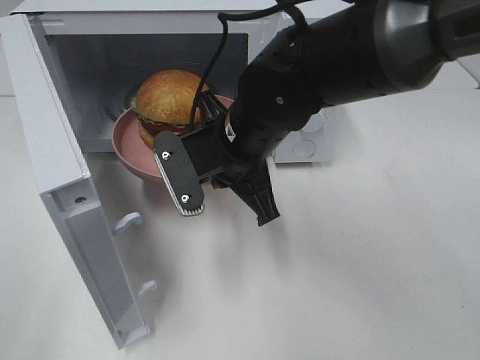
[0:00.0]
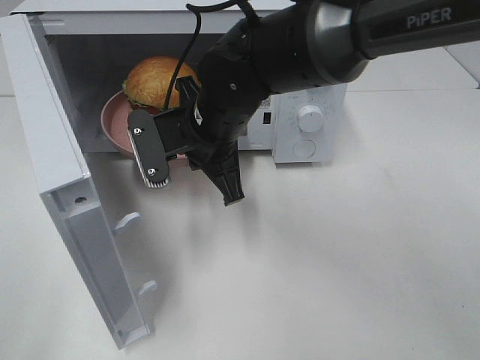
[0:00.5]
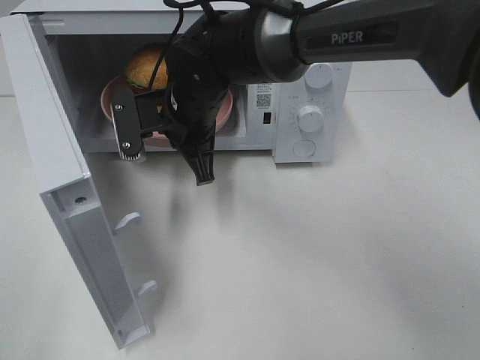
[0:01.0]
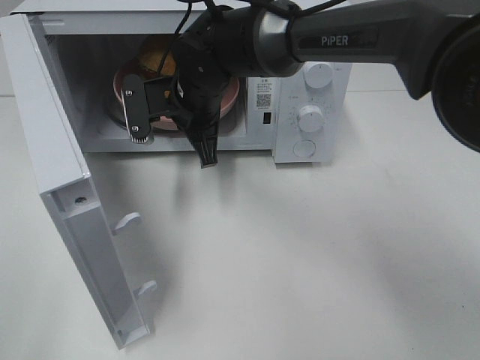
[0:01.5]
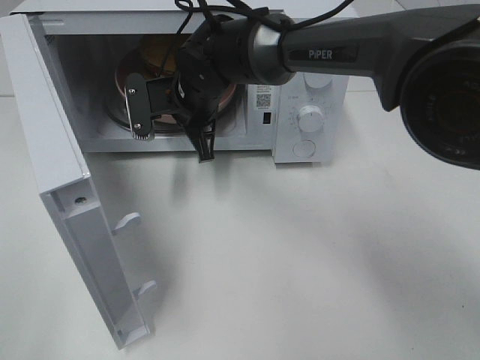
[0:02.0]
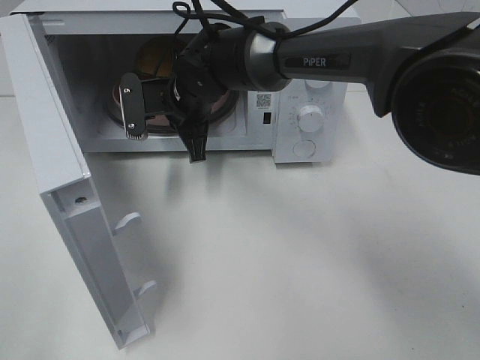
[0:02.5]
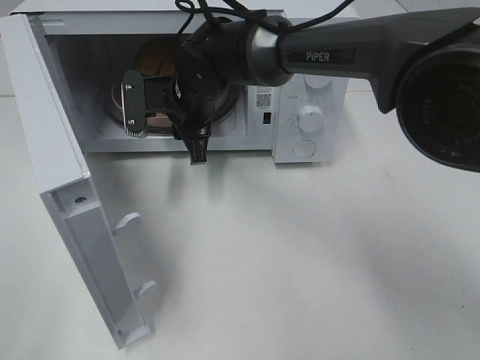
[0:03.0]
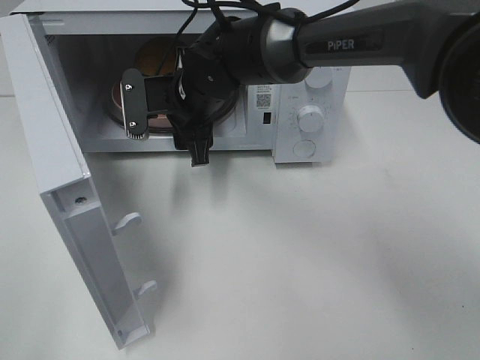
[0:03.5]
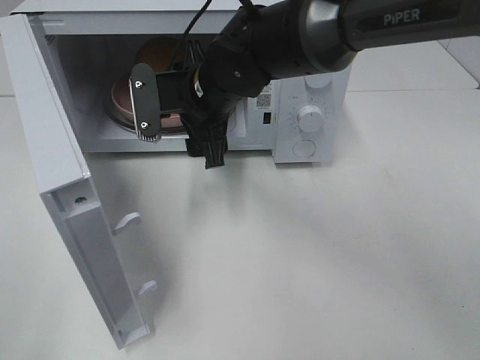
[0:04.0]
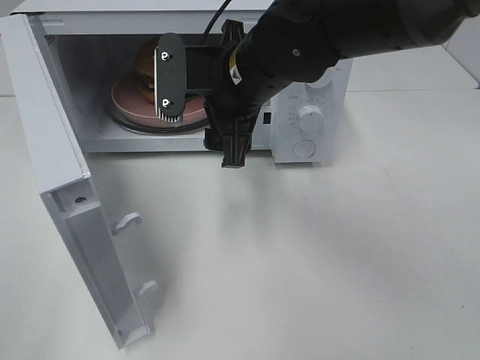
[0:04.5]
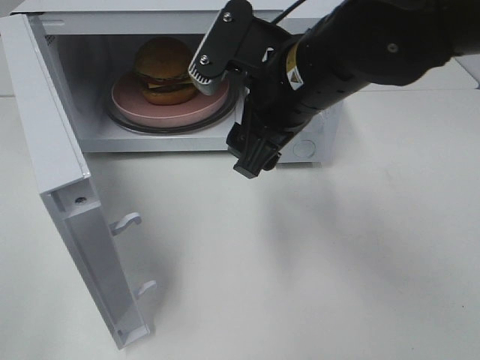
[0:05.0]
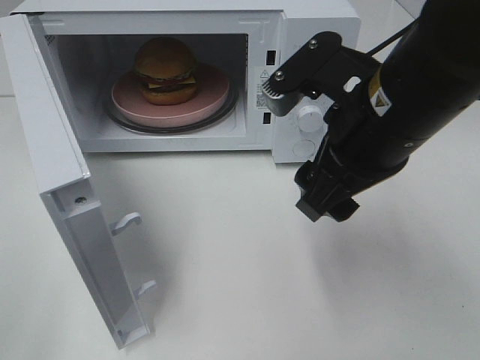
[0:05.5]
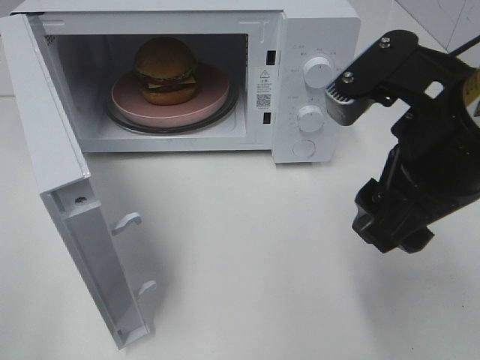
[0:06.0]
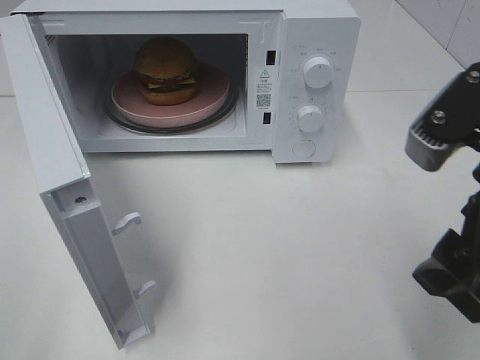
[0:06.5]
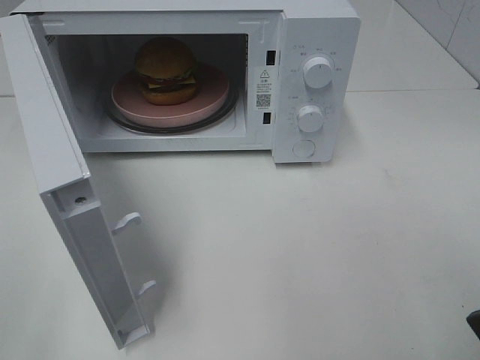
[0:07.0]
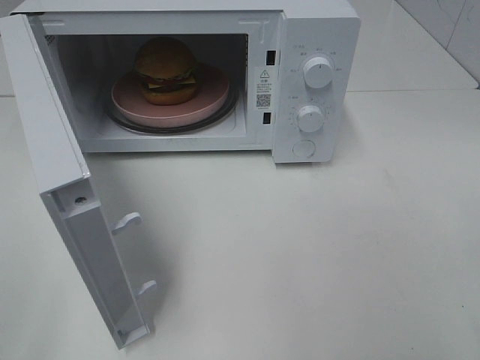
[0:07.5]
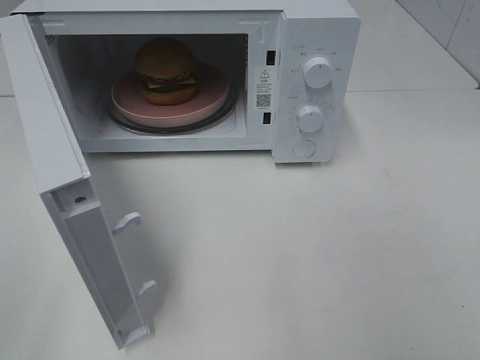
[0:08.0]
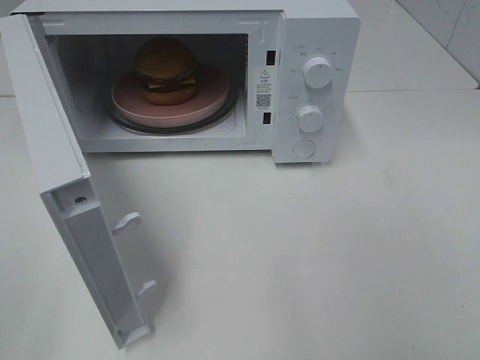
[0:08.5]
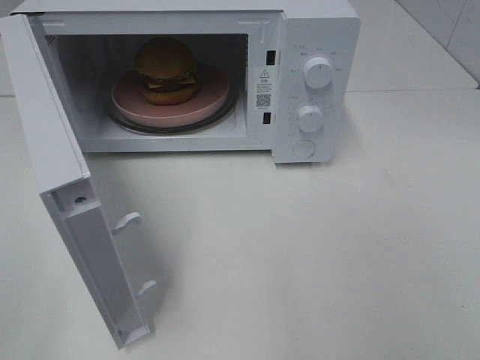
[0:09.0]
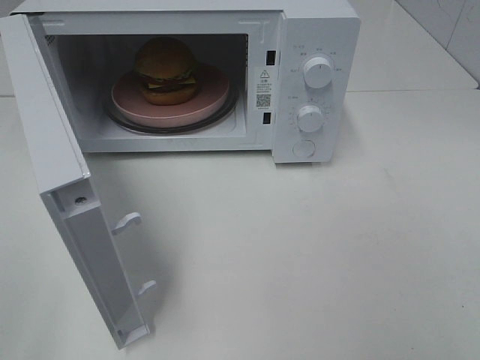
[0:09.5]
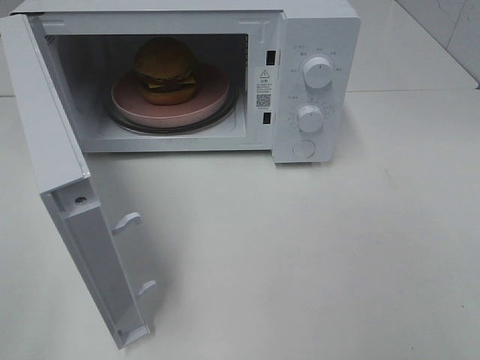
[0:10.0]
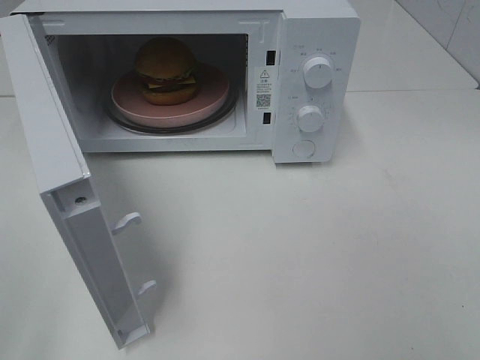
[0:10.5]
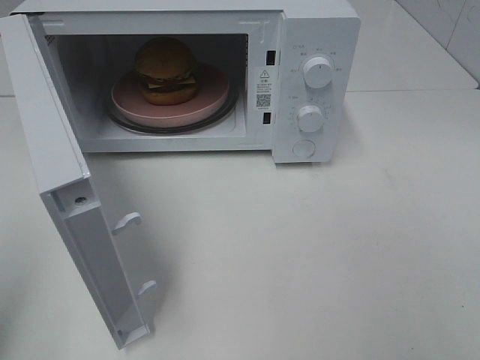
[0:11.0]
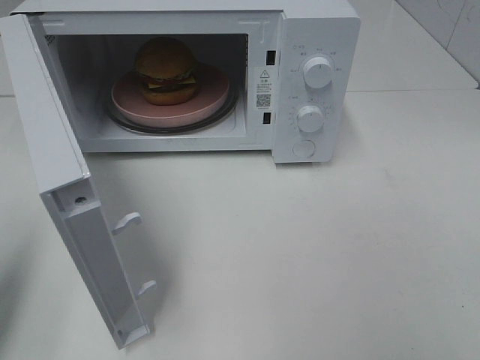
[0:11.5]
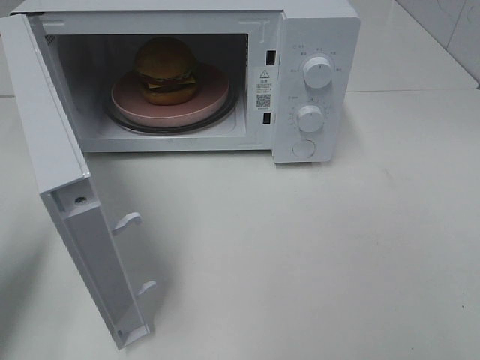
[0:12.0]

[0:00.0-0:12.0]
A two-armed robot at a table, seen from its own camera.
Task of the whole recording: Heat the burger.
Step, 0:00.0 to 0:02.5: Right hand: place the plate in the microwave.
0:00.0 to 0:02.0: The right gripper heads forward and to the left, covering some 15 cm.
0:02.0 to 0:04.0: The right gripper shifts by some 5 cm, and opens its fingers.
0:04.0 to 0:06.0: The right gripper heads backward, to the right and upward, covering approximately 25 cm.
0:06.0 to 0:08.0: The right gripper goes roughly 25 cm backward and to the right.
0:10.0 to 0:12.0: The left gripper moves forward and downward, some 20 cm, and closes.

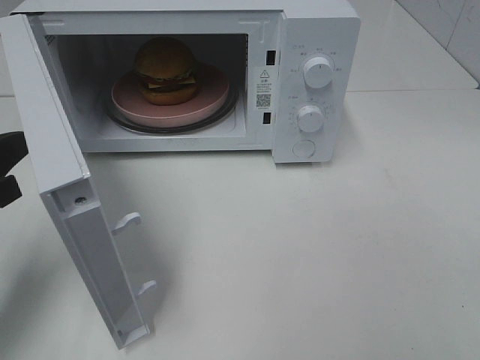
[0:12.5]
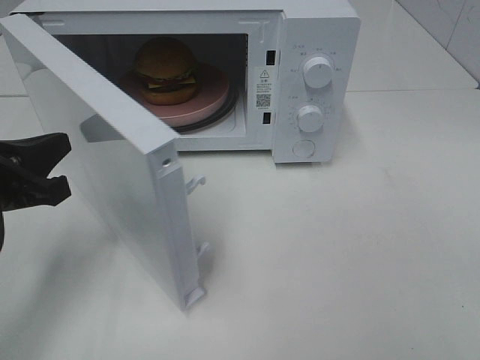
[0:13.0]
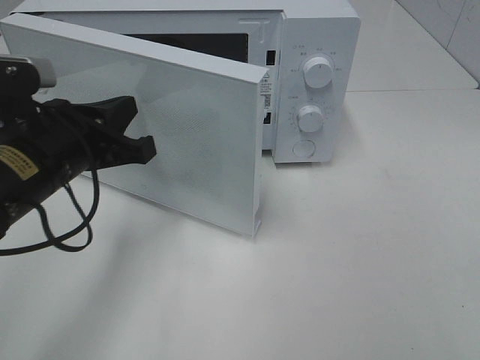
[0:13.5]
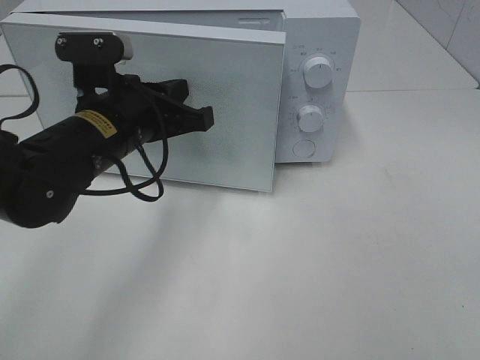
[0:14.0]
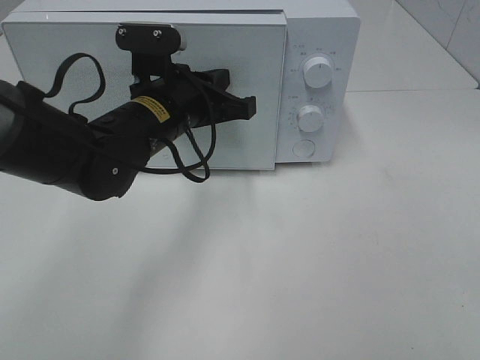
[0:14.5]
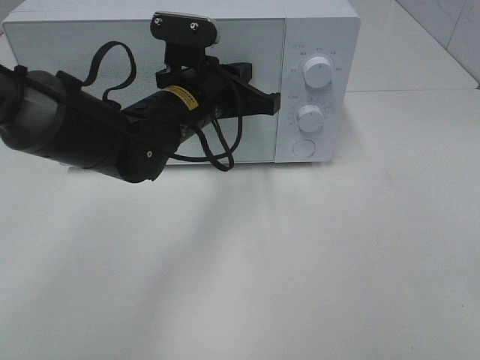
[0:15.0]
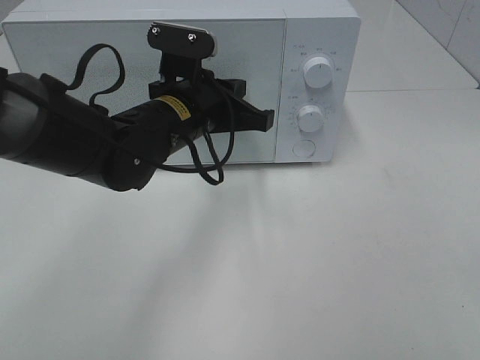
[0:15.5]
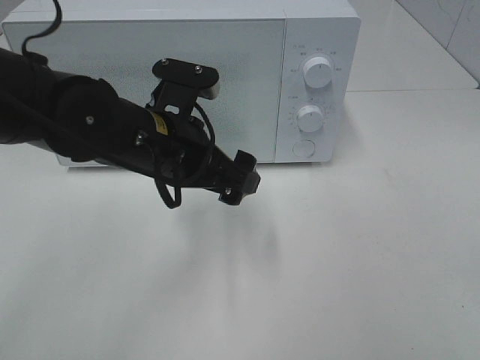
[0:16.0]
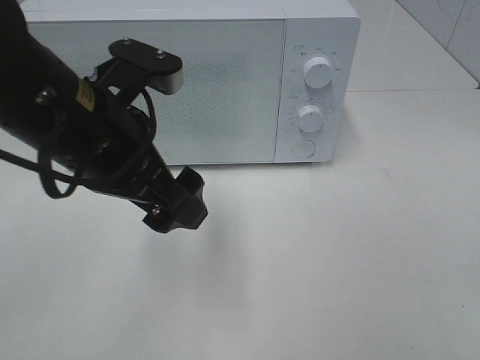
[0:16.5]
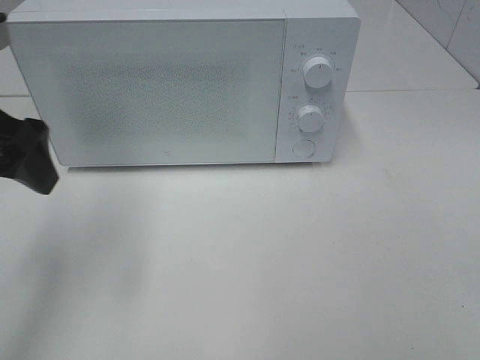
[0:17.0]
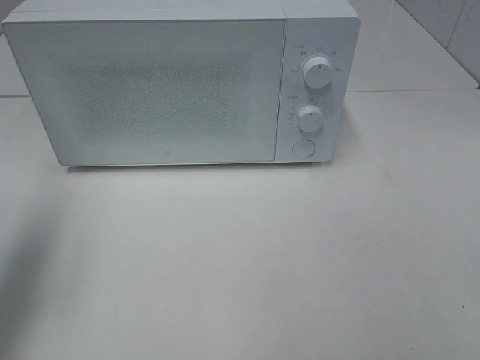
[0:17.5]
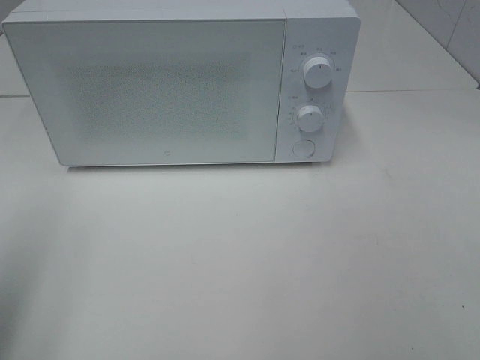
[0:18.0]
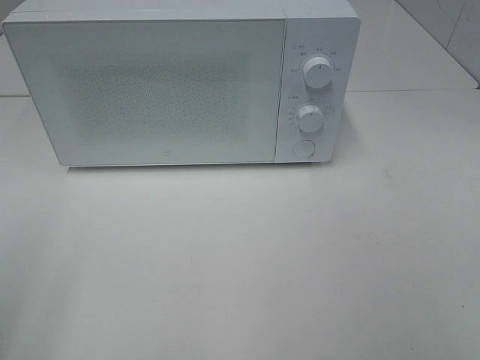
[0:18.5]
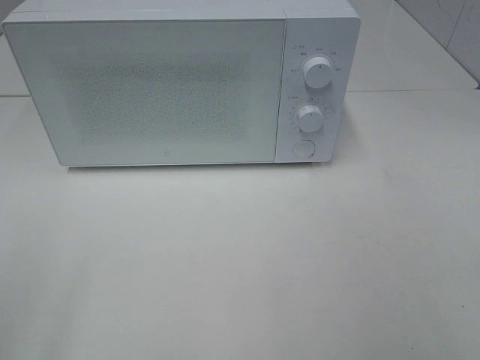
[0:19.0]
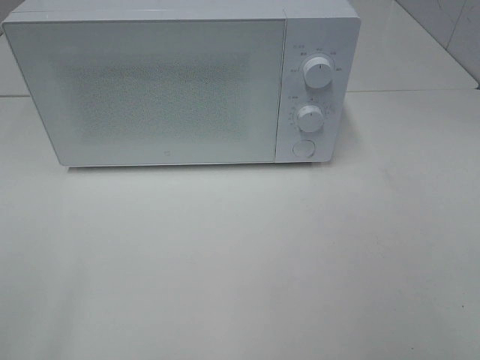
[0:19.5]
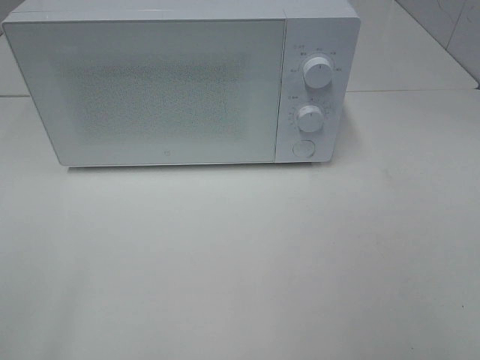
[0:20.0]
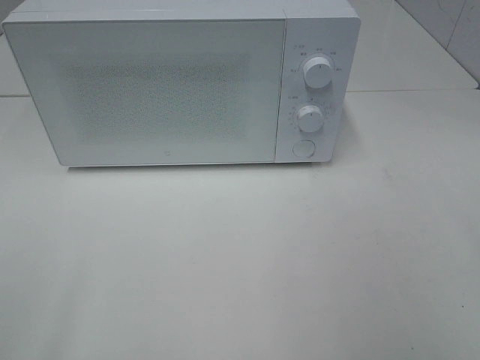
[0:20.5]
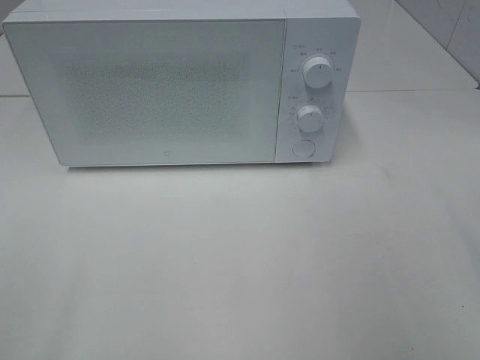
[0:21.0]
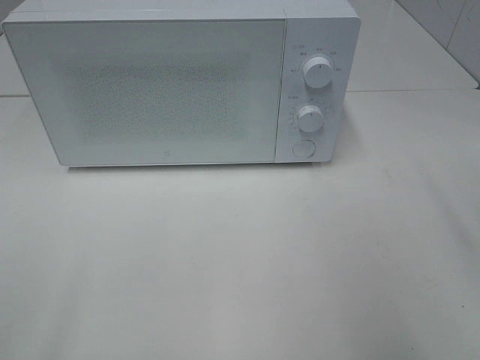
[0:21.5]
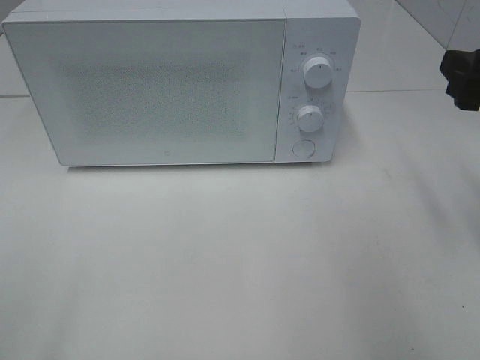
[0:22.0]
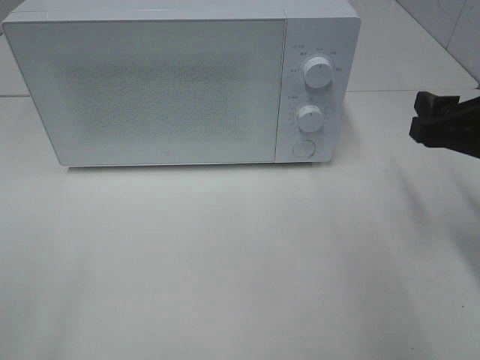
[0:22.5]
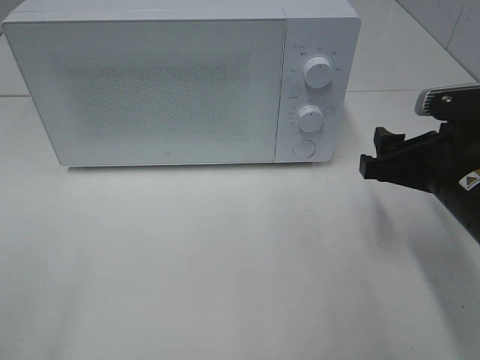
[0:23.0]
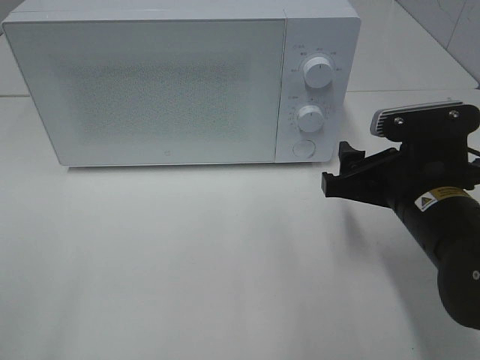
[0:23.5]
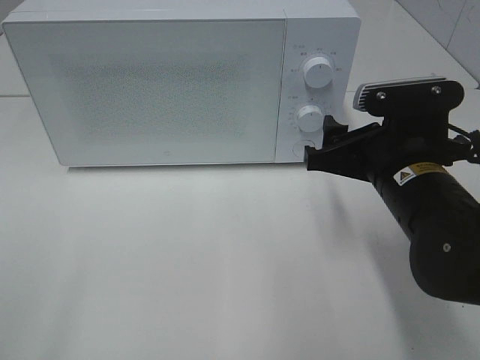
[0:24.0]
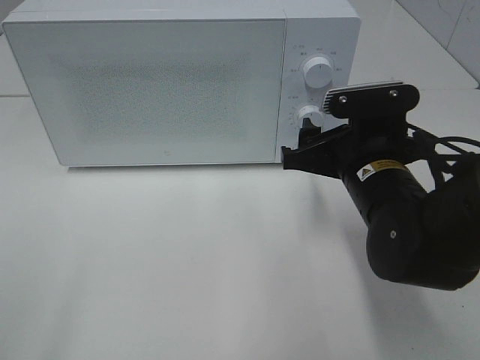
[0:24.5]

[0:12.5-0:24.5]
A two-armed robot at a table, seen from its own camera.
Task of the whole recording: Heat the burger.
Step, 0:12.5 to 0:15.5: Left hand: close the microwave door.
0:12.5 to 0:14.5: The left gripper heads to the right and forward, covering some 25 cm.
0:14.5 to 0:16.5: The left gripper goes approximately 15 cm backward and upward, and opens up.
0:16.5 to 0:18.5: The left gripper moves to the left and backward, about 25 cm.
0:20.5 to 0:22.5: The right gripper is displaced forward and downward by roughly 20 cm.
0:22.5 to 0:24.5: The right gripper moves to the left and downward, about 15 cm.

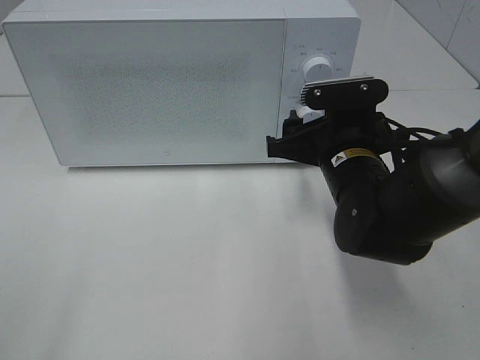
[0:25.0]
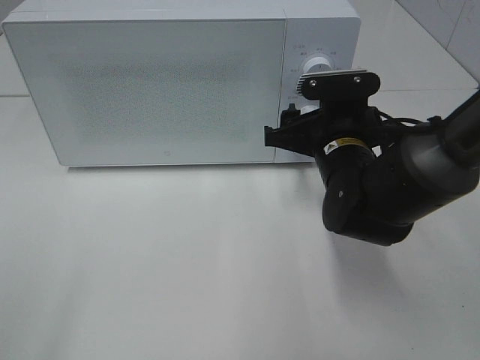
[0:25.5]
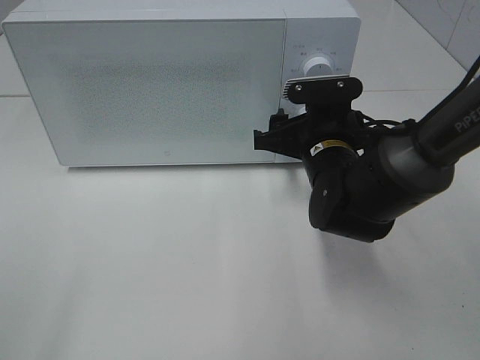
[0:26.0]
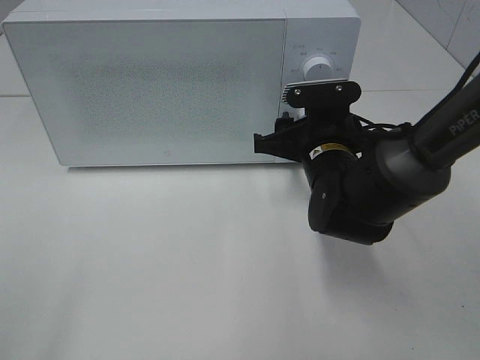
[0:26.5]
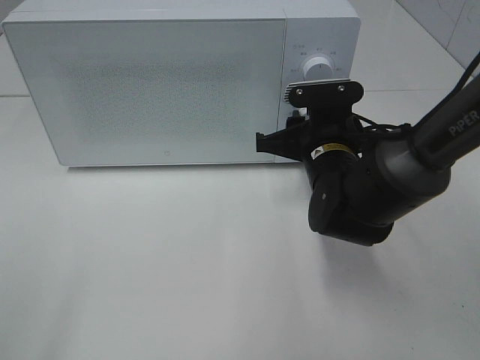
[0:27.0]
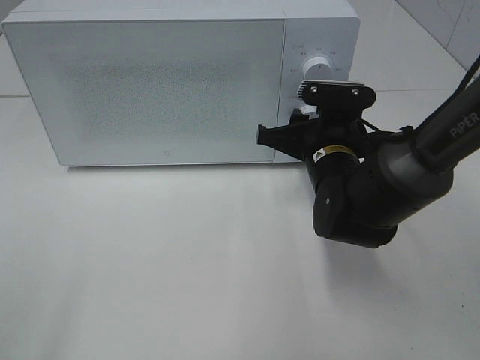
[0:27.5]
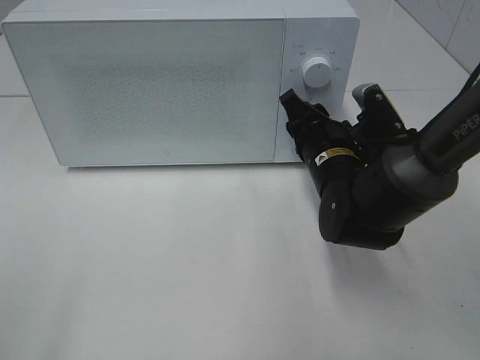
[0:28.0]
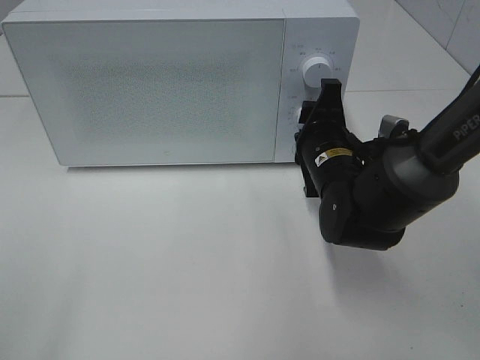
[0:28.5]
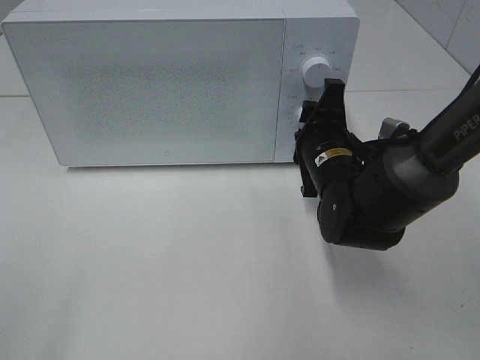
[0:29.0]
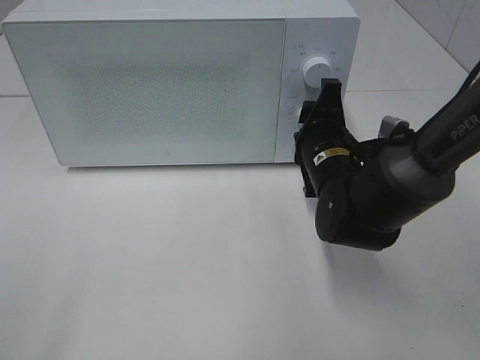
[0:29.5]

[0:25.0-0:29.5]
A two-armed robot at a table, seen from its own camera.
Task of the whole recording: Heat the burger.
0:25.0 to 0:27.0: The right gripper closes its fingers.
